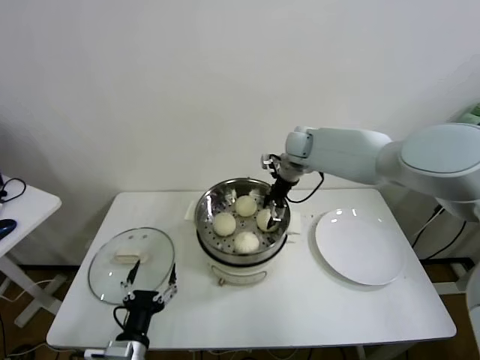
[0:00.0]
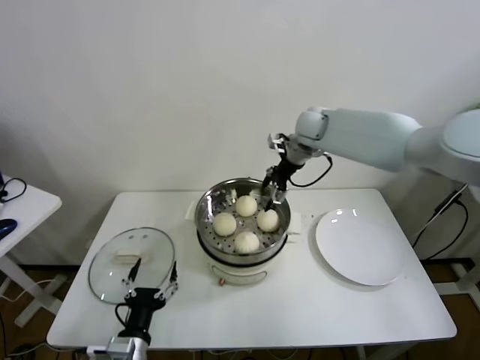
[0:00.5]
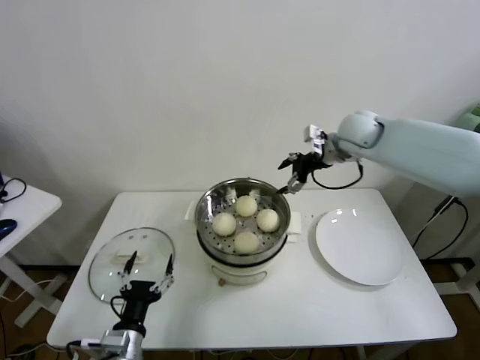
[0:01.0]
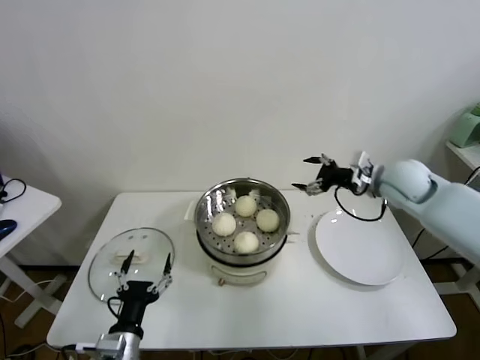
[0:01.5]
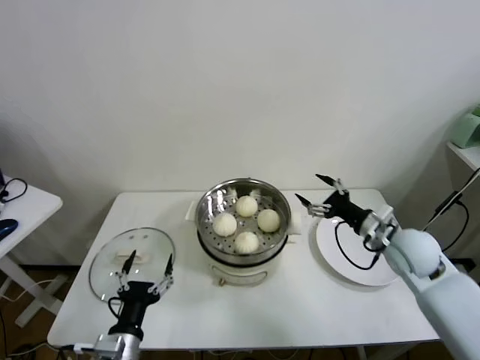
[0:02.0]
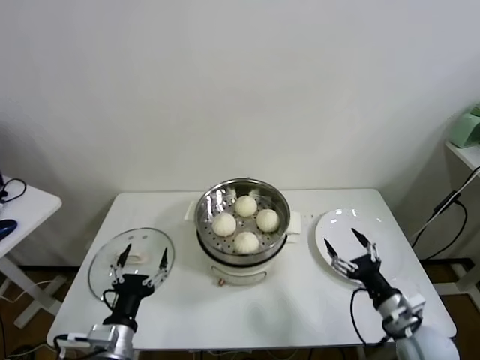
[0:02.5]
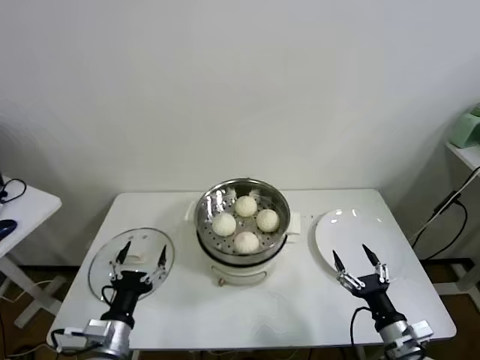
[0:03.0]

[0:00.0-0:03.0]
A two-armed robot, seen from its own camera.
Task of the whole recording: take steamed baozi put them in steamer.
0:00.0 to 0:01.5: The right gripper is displaced to the right and backward by approximately 25 cm.
0:01.5 to 0:03.0: The right gripper is displaced backward and downward by roughly 40 cm.
